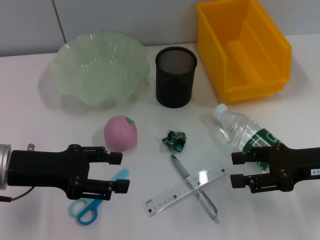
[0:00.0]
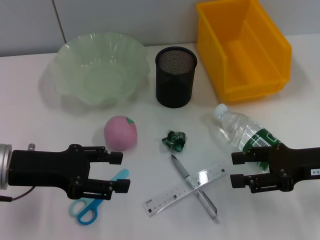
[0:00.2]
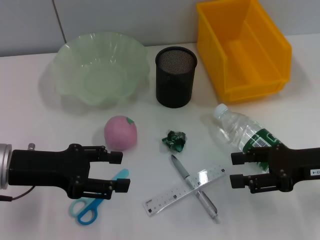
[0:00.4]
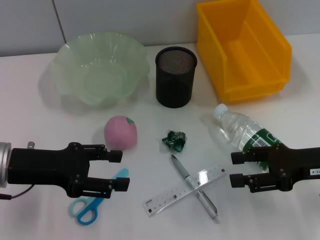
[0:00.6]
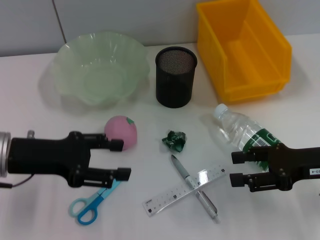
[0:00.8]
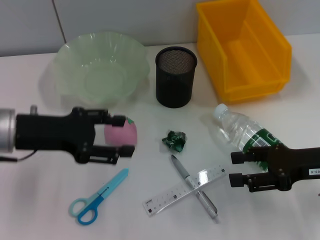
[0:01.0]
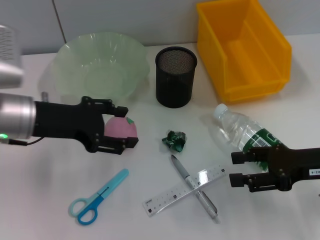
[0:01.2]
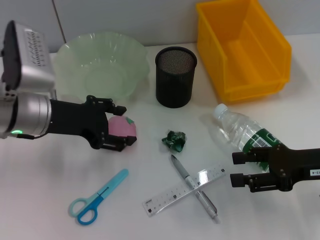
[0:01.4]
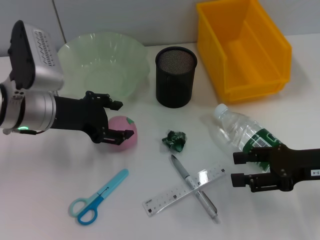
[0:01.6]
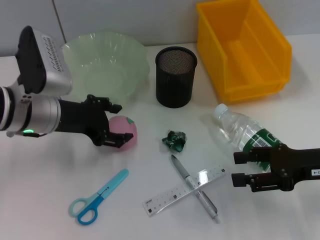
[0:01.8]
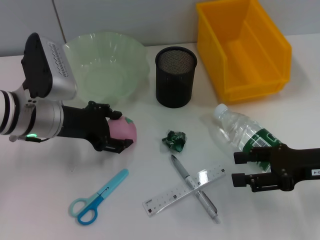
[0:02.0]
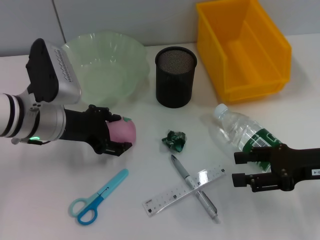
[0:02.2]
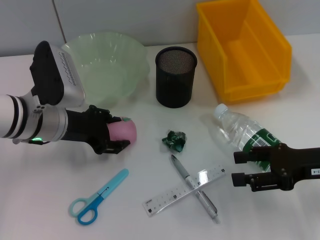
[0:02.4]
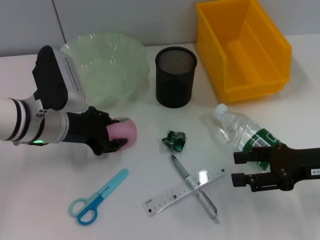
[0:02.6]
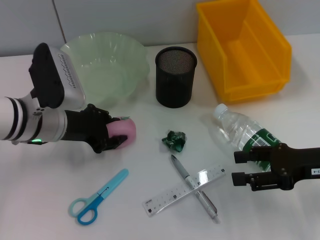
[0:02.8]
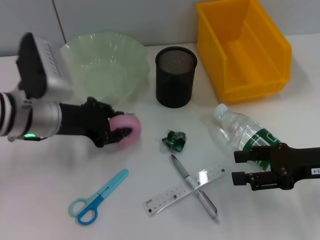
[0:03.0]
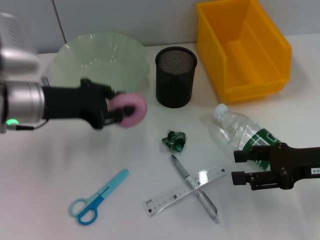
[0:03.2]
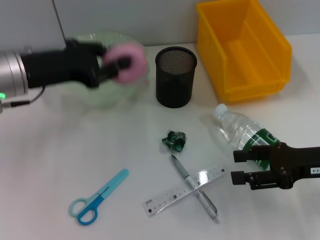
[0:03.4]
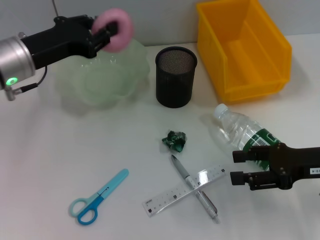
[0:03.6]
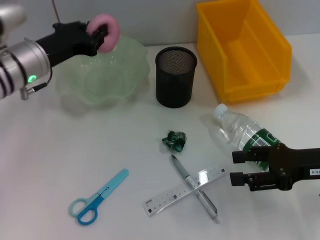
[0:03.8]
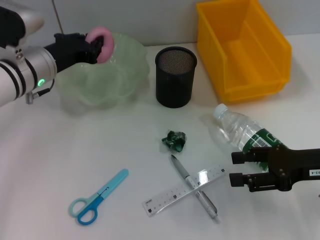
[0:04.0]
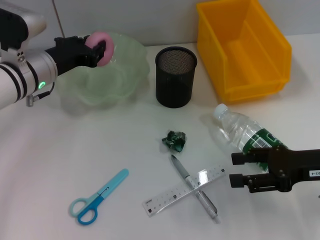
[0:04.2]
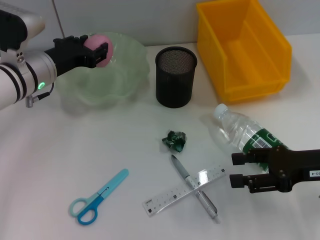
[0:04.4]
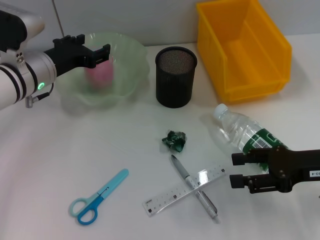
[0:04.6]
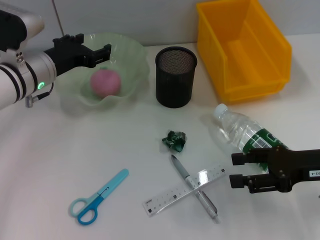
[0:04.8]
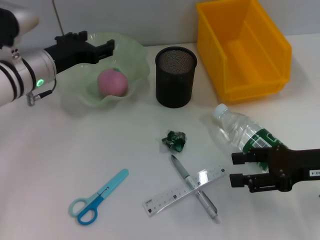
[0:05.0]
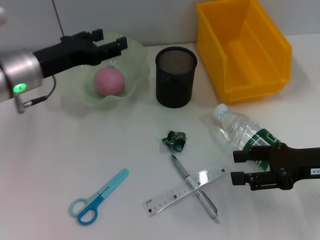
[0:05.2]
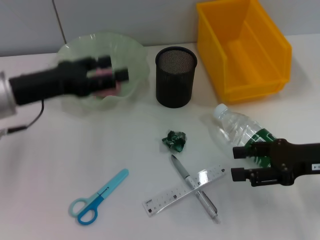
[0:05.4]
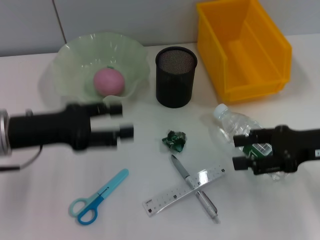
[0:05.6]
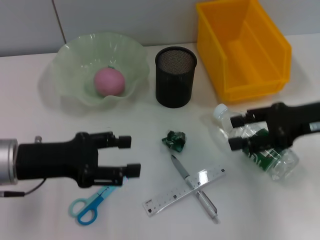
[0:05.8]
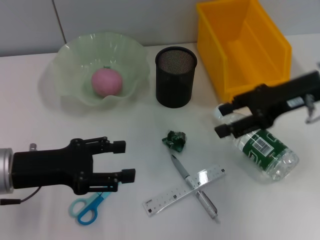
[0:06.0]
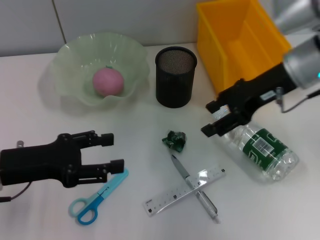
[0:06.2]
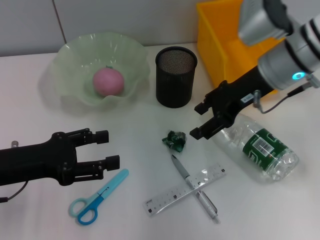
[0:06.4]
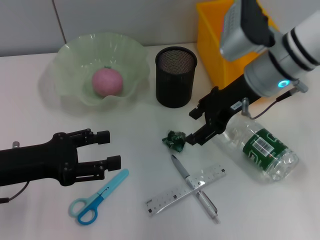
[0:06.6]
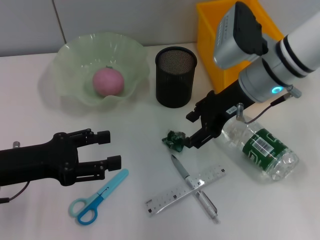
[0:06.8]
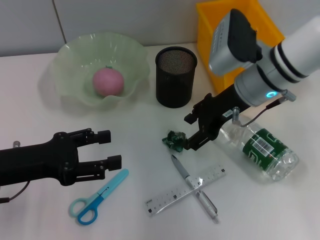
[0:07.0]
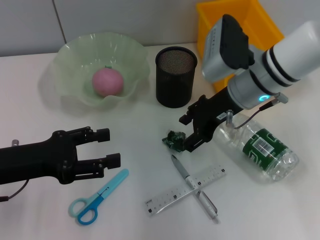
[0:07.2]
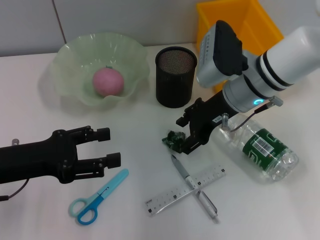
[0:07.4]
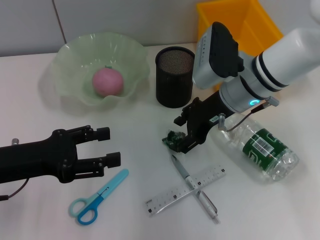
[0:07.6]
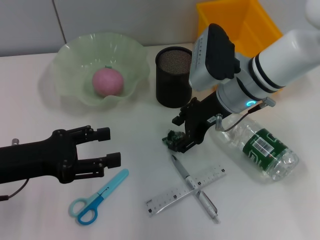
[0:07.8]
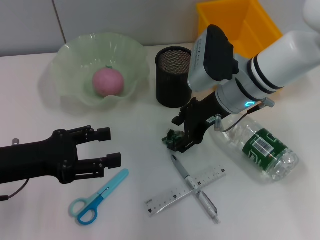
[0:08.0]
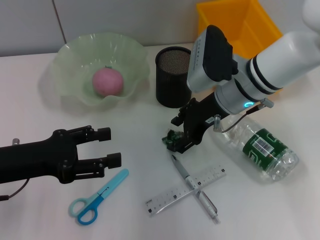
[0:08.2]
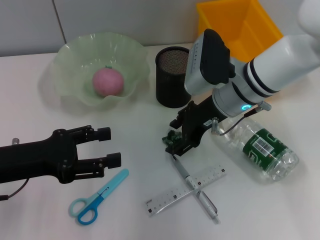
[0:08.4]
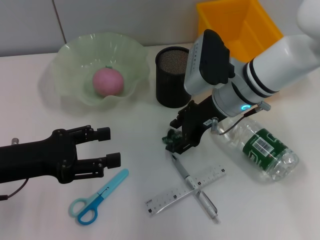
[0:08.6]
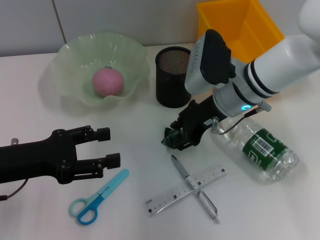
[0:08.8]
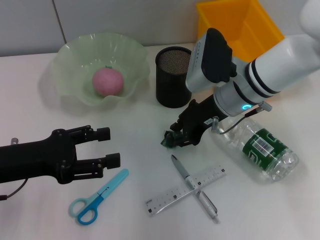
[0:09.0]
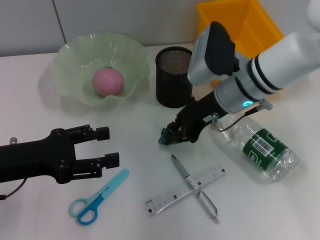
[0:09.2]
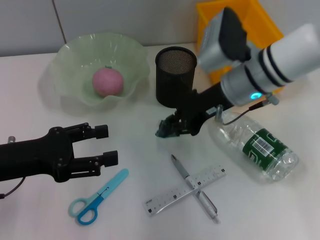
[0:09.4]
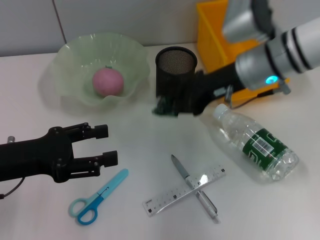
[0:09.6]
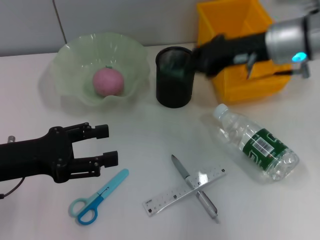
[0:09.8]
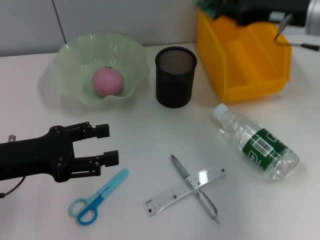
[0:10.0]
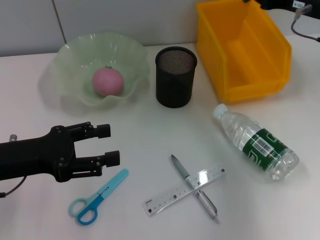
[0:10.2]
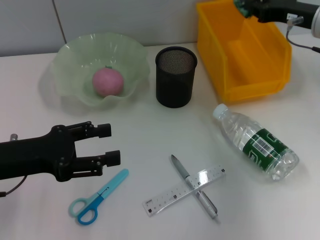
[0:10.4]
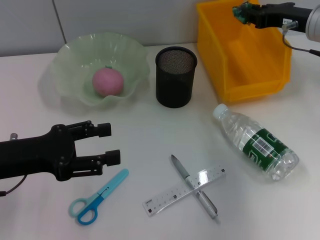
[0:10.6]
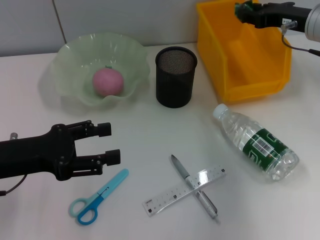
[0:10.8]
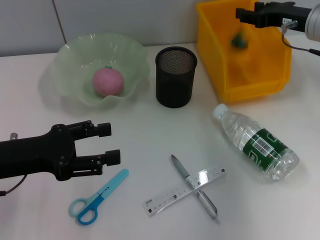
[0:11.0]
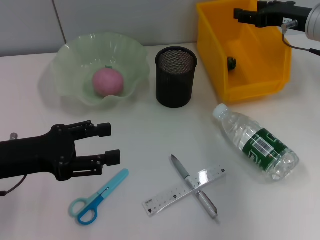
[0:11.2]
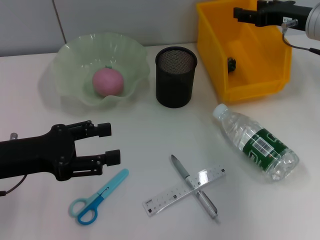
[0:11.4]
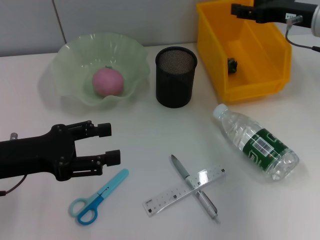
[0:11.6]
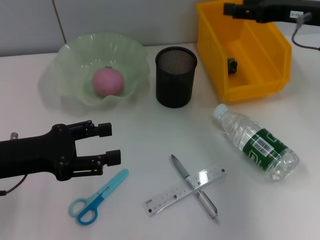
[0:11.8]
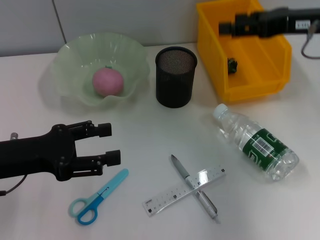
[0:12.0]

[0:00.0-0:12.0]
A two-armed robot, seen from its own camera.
Step, 0:00.0 to 0:02.8: Grab the peach with the left hand.
Step, 0:03.0 to 0:04.8: Place the peach into the fruit bowl with the left hand.
Step, 0:05.0 to 0:09.0: Grab the plastic with the right hand.
Step, 0:09.2 to 0:11.0: Place the plastic into the trash can with the right hand.
0:00.0 to 0:01.6: The left gripper shifts roughly 10 cm forward and to the right.
0:01.6 to 0:03.0: The left gripper closes its fingers.
0:03.0 to 0:04.4: The left gripper heads forward, covering some 5 cm.
0:04.4 to 0:06.0: The left gripper heads backward, covering about 15 cm, and opens up; the right gripper shifts about 15 cm upward and forward.
0:06.0 to 0:07.6: The right gripper is displaced to the left and downward by about 15 cm.
0:07.6 to 0:09.0: The grippers move only a little.
0:09.0 to 0:10.4: The right gripper moves to the right, some 15 cm, and closes its fingers.
0:10.4 to 0:12.0: The right gripper goes about 5 cm upward and backward, and opens.

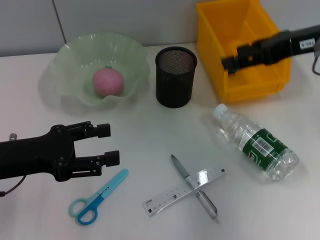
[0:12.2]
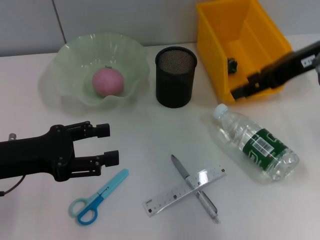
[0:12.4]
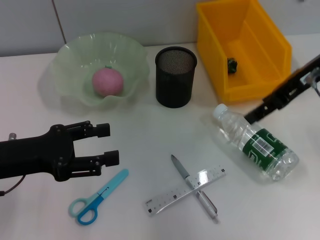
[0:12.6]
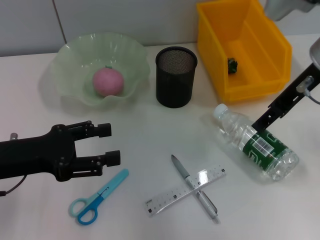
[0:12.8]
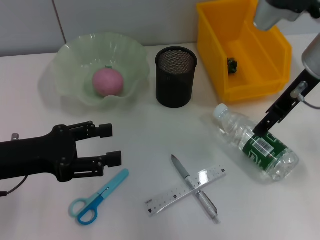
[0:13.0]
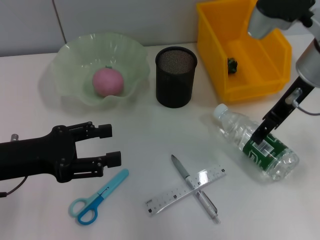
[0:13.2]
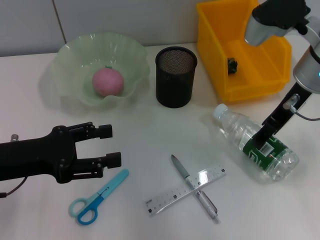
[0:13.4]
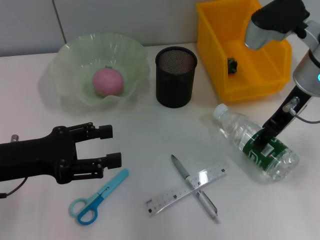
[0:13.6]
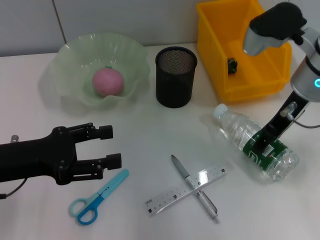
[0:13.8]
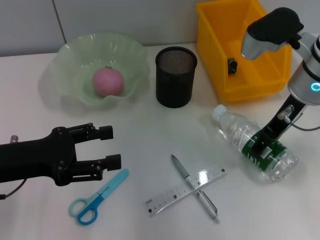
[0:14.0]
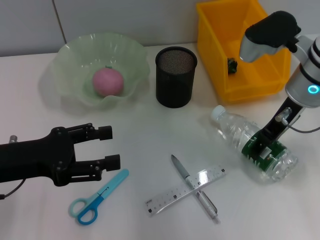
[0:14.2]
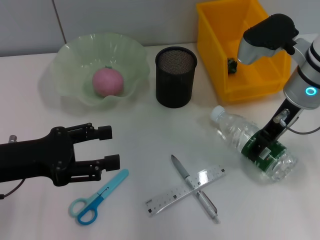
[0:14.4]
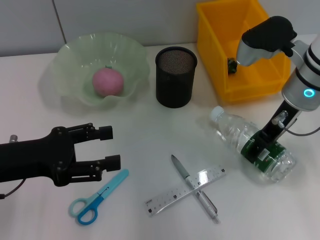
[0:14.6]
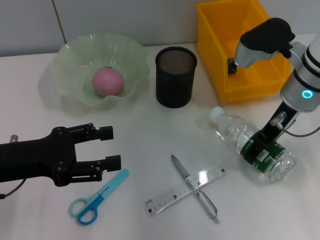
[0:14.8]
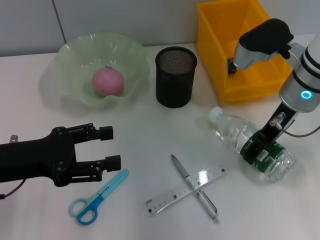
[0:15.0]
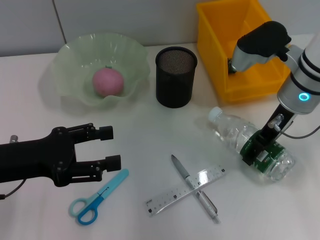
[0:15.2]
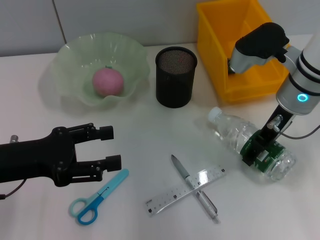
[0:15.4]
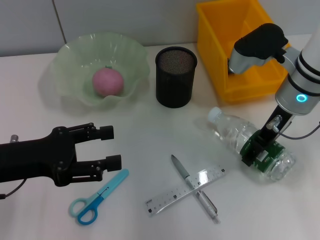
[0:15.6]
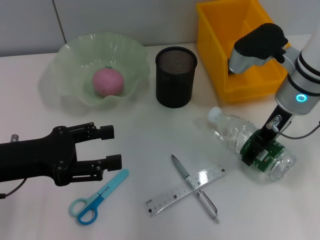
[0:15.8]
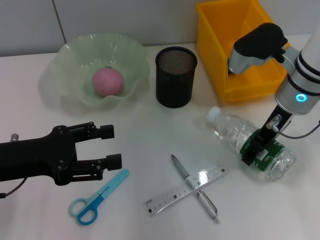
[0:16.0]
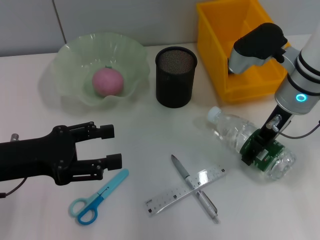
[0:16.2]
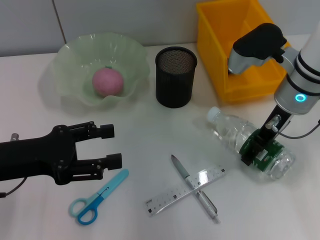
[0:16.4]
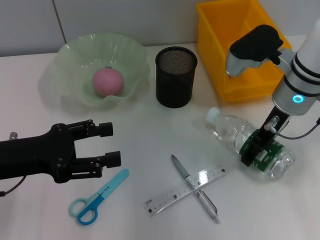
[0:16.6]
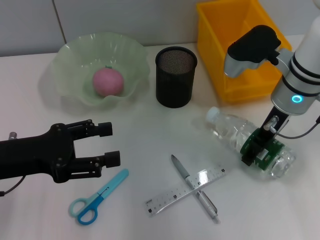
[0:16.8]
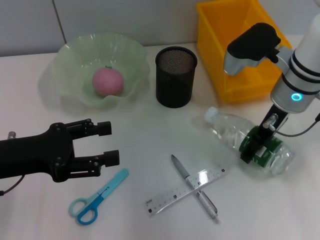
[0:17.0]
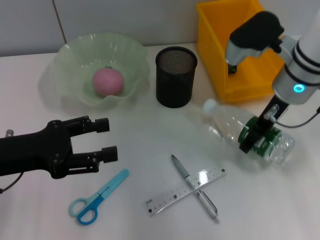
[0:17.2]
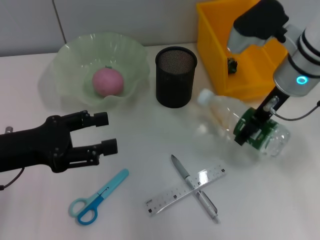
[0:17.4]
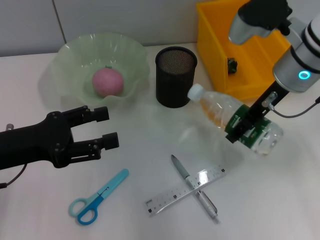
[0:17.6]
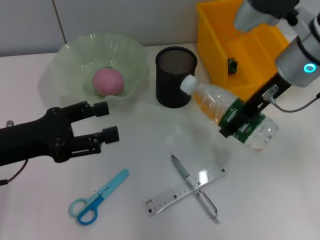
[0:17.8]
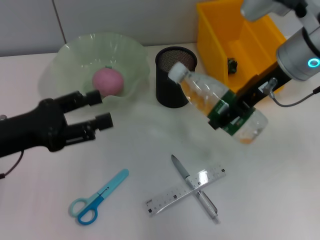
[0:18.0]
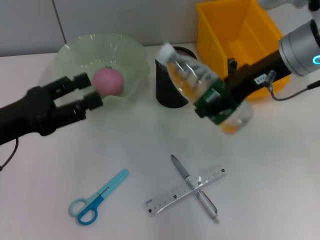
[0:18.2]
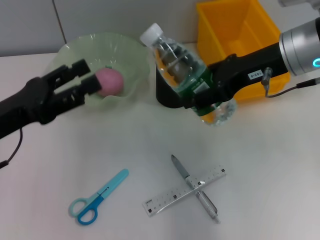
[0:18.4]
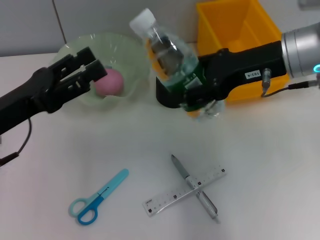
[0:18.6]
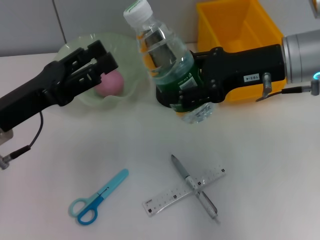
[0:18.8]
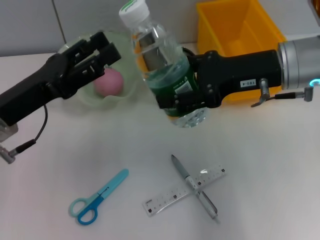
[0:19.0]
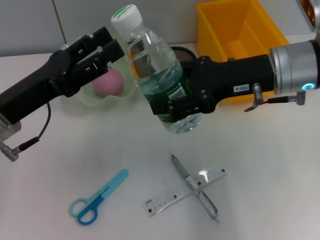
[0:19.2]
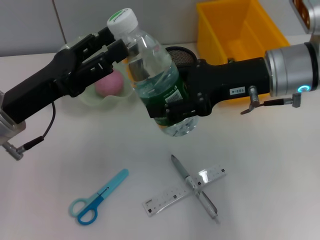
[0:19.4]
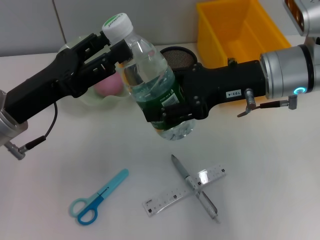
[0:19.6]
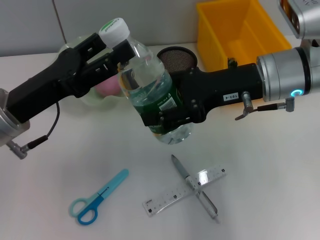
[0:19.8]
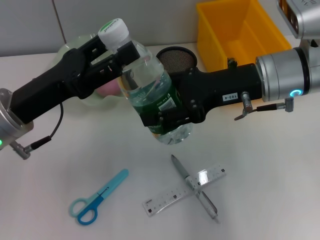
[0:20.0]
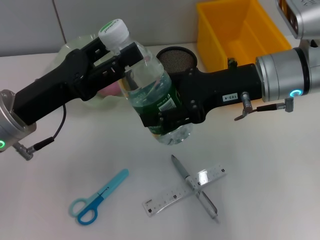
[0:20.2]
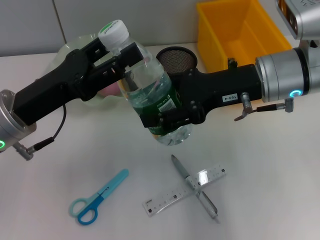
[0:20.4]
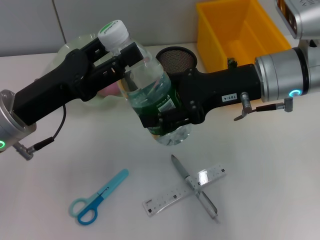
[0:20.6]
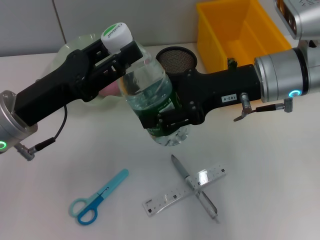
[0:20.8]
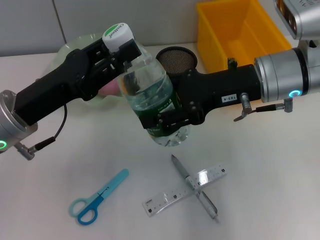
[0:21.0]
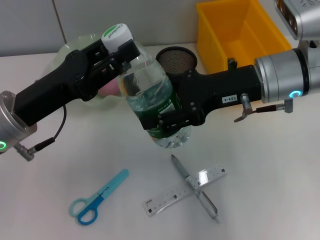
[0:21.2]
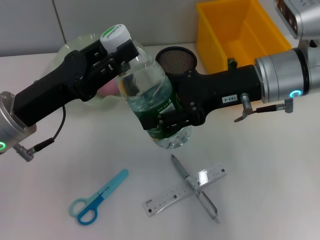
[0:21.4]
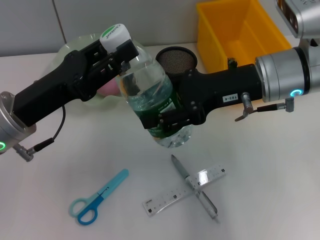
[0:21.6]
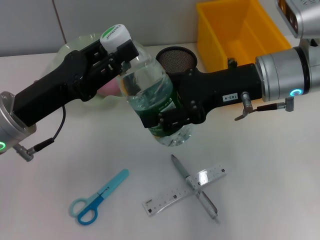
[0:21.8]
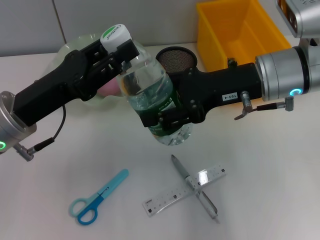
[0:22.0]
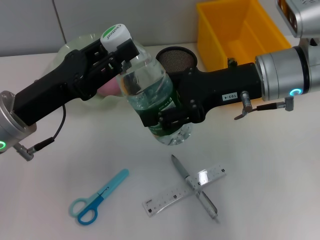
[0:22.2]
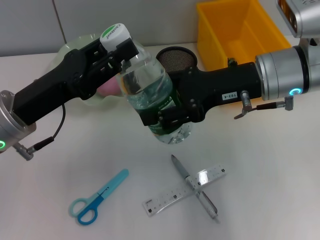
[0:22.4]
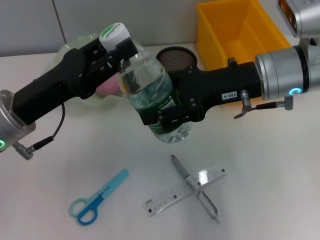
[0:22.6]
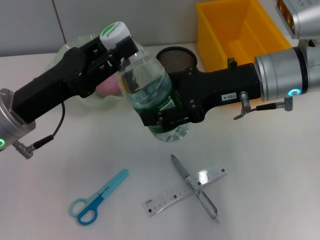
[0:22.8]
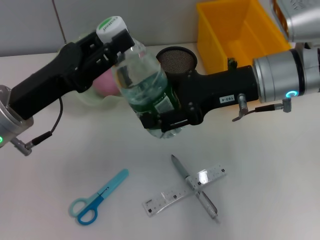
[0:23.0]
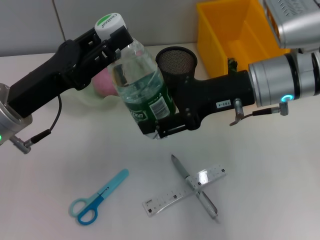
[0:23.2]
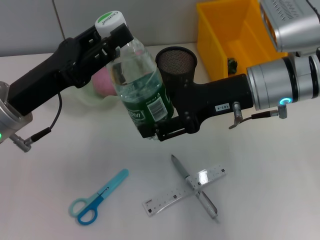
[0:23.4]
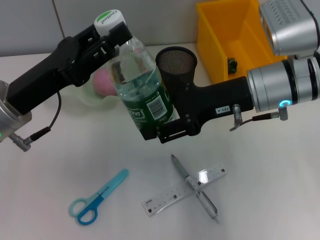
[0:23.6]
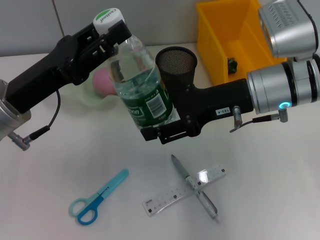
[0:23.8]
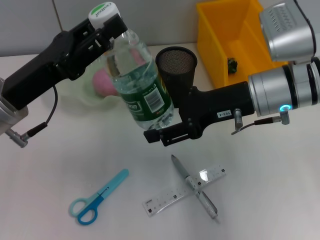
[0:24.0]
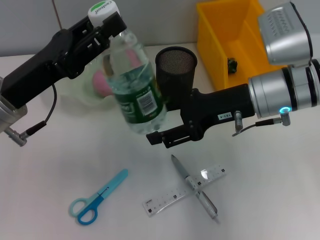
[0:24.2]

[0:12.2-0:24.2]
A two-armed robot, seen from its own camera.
Step, 0:12.2 to 0:16.4: Grab the water bottle with the right hand.
Step, 0:16.6 to 0:23.6: Pass the water bottle from the right hand to the left hand.
0:12.2 to 0:13.8: The right gripper shifts approximately 10 cm to the left and downward.
0:13.8 to 0:15.2: The grippers stay close to where they were, moving slightly.
0:15.2 to 0:16.6: Neither gripper changes place.
0:16.6 to 0:18.2: The right gripper moves upward, some 5 cm.
0:18.2 to 0:19.8: The left gripper is displaced to the right by about 5 cm.
0:19.8 to 0:21.2: The left gripper closes up.
0:21.2 to 0:22.6: Both grippers stay about where they are.
